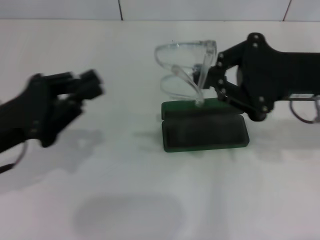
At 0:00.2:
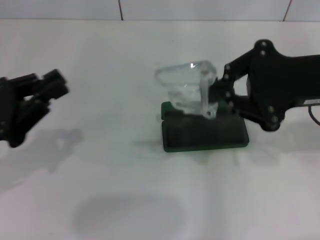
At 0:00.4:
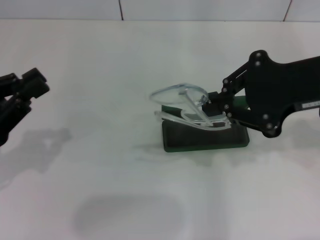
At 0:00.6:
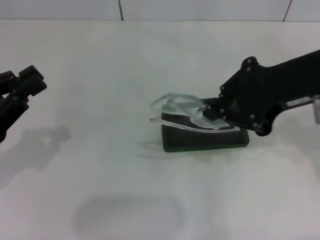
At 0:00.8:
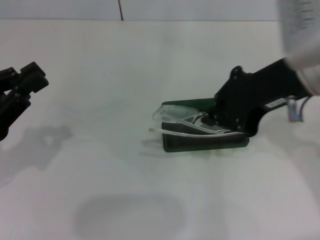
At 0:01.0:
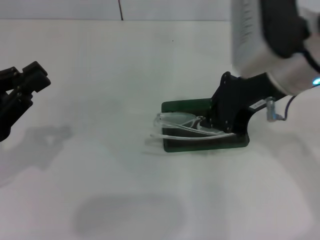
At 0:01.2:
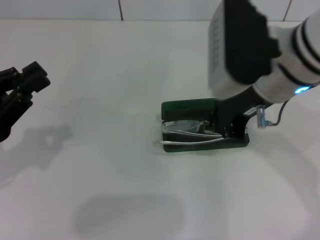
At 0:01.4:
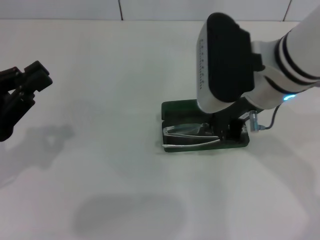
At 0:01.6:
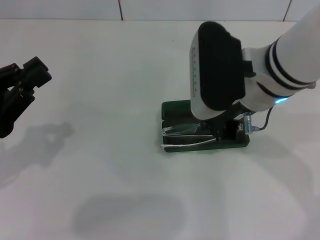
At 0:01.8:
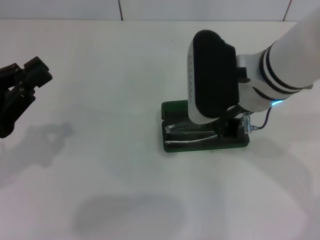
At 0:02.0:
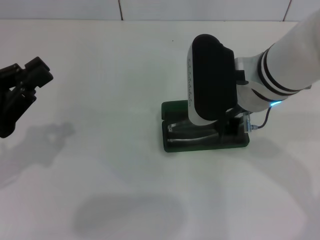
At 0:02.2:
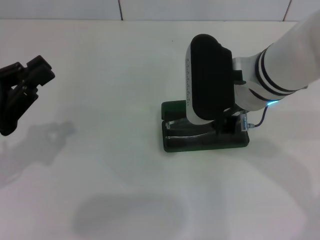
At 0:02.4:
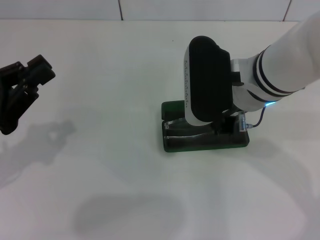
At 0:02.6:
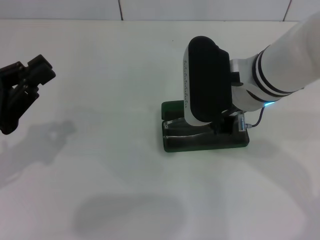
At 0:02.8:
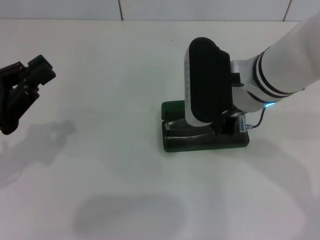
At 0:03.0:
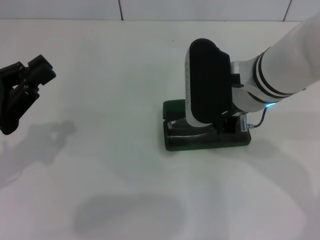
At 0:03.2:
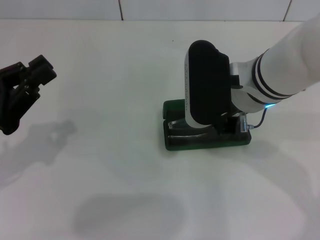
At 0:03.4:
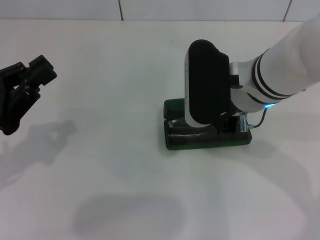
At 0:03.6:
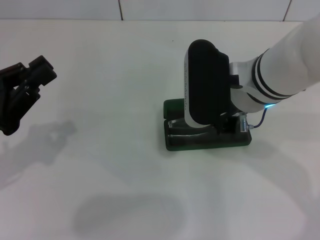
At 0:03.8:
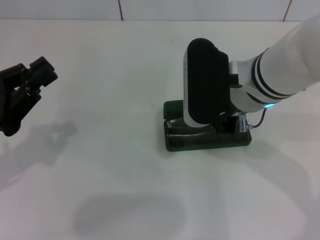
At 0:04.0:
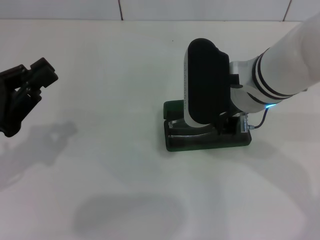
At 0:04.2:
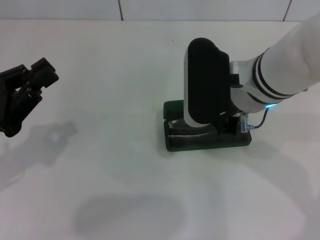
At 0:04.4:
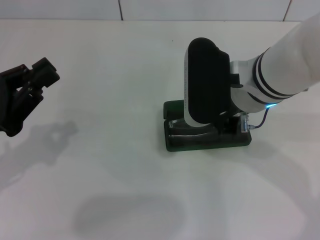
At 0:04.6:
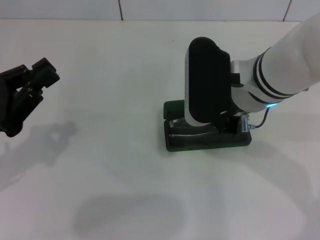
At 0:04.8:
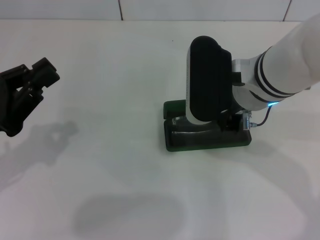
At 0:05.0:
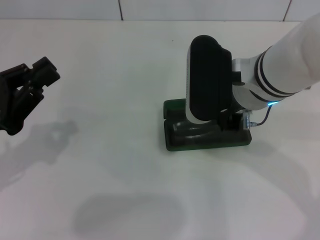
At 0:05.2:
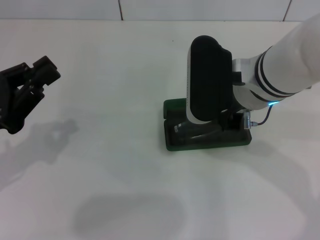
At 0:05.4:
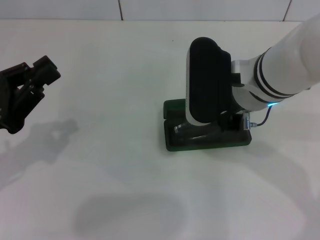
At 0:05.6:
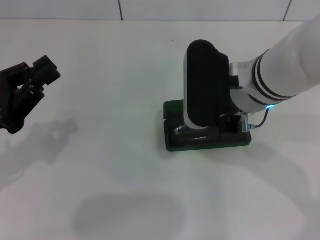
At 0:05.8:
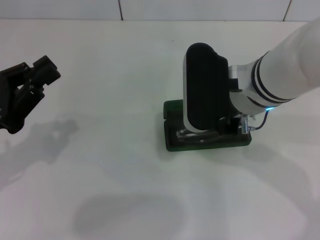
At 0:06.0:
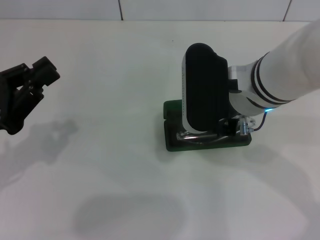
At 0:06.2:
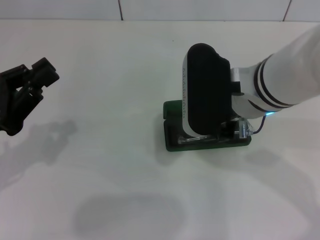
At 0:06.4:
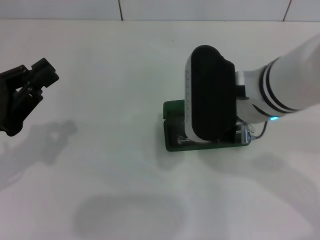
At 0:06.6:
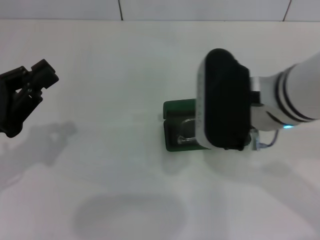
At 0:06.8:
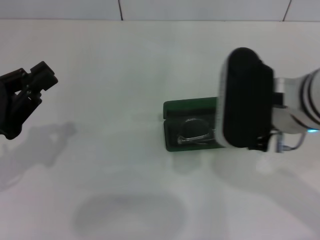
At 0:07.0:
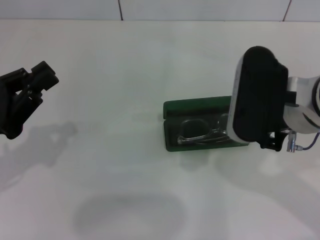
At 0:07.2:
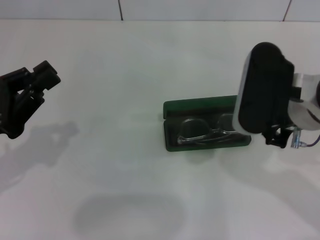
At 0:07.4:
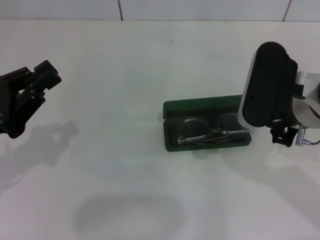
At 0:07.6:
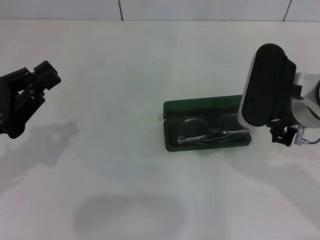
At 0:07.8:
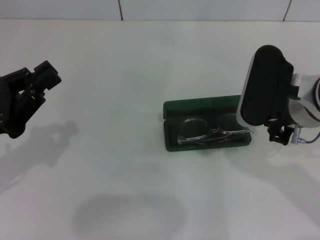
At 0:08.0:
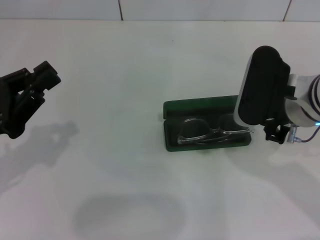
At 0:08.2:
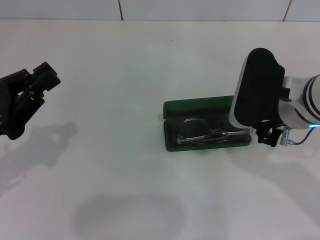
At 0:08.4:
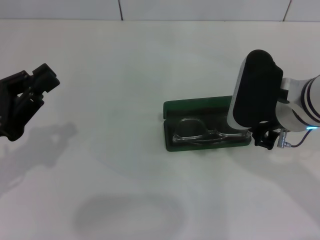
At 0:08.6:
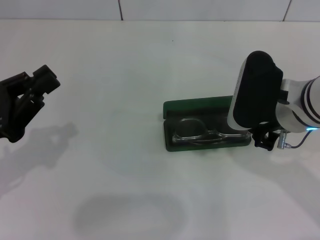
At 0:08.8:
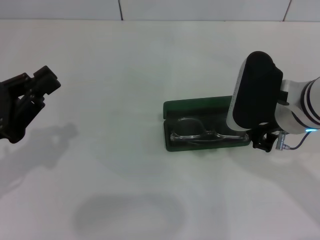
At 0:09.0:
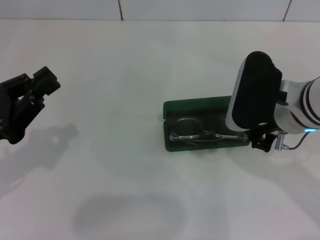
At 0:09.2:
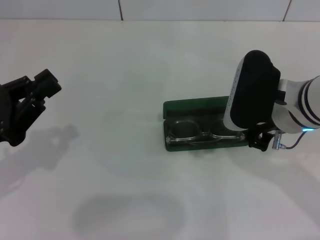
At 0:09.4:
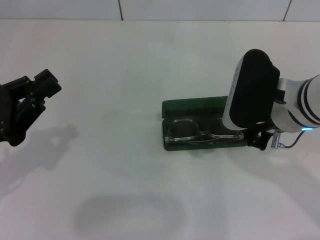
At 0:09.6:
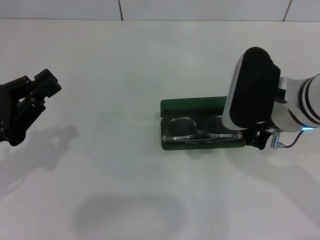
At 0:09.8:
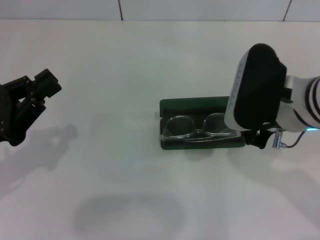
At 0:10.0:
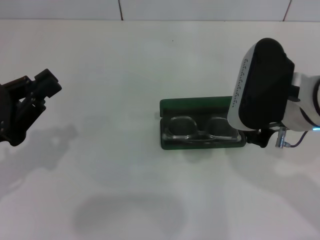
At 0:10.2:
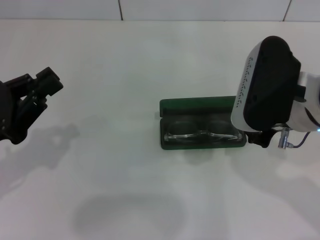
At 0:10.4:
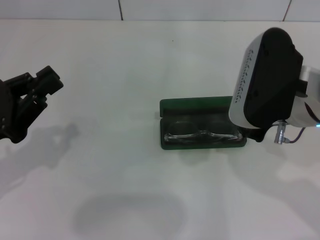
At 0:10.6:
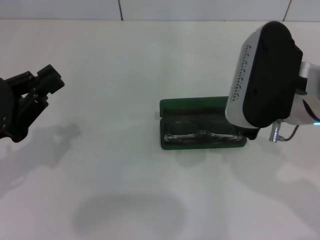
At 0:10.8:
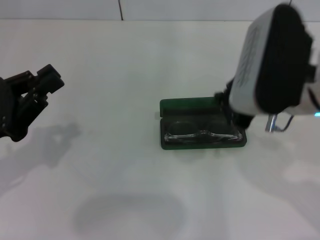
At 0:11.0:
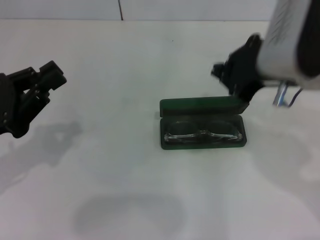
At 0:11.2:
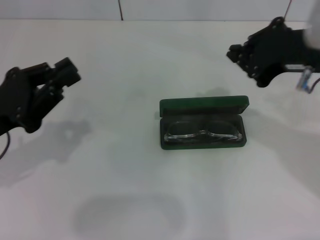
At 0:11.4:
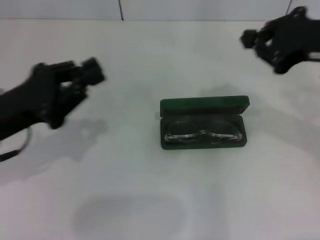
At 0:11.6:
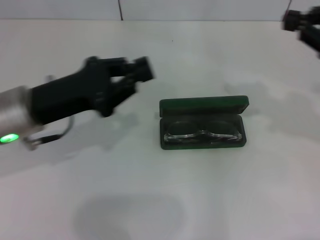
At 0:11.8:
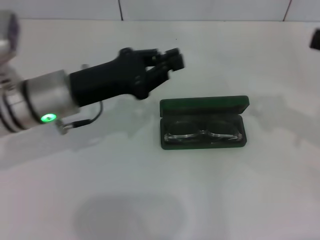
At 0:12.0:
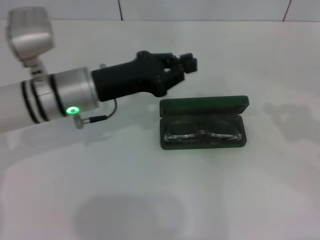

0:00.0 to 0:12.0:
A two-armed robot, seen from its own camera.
Step, 0:00.0 to 0:10.6: Put the glasses into the case with your right hand.
0:00.0 to 0:01.6: The right gripper heads to the left, covering roughly 10 cm; the left gripper moves roughly 5 cm.
0:01.6 to 0:03.0: The grippers make only small movements.
0:03.0 to 0:06.0: The two grippers keep their place.
0:06.0 to 0:07.6: The right gripper shifts about 5 cm to the right.
0:07.6 to 0:09.0: The grippers make only small movements.
0:09.0 to 0:10.4: The right gripper goes approximately 5 cm upward.
0:10.4 to 0:12.0: The right gripper shifts about 25 cm to the right. The left gripper moves to the right and forward, about 20 cm.

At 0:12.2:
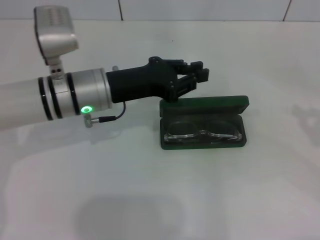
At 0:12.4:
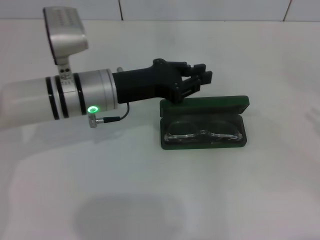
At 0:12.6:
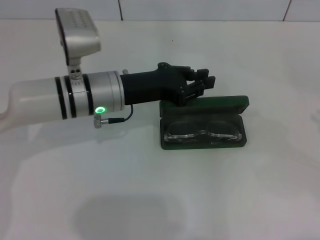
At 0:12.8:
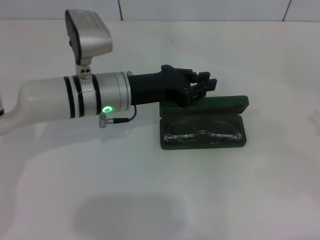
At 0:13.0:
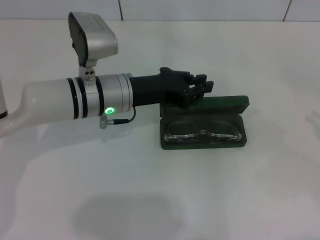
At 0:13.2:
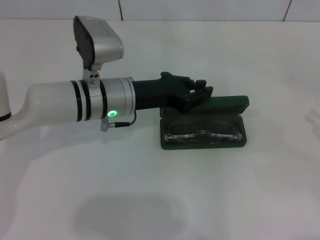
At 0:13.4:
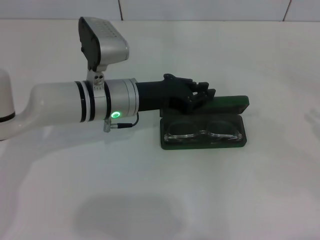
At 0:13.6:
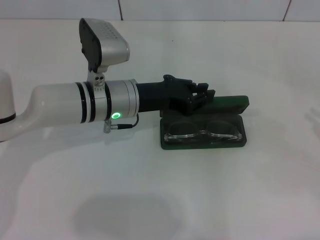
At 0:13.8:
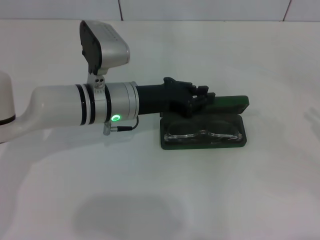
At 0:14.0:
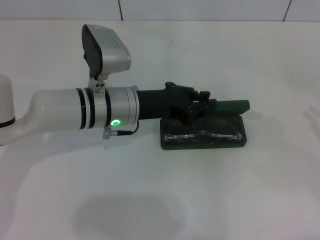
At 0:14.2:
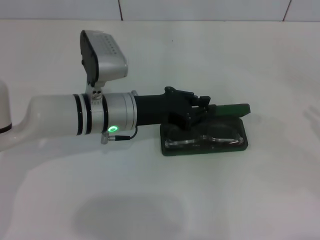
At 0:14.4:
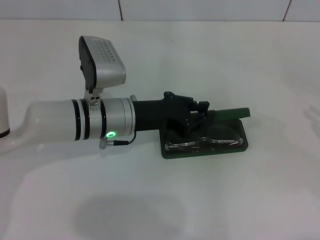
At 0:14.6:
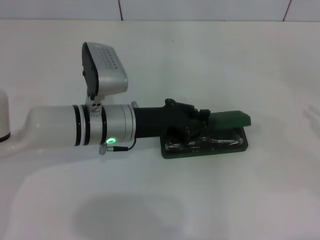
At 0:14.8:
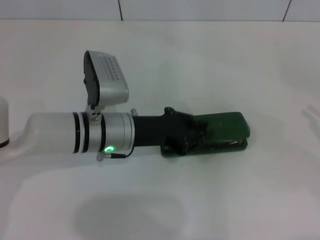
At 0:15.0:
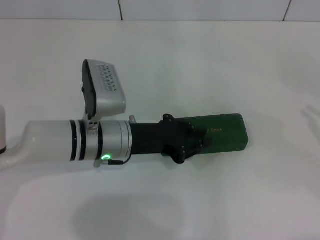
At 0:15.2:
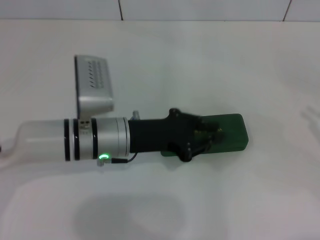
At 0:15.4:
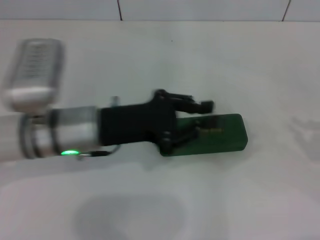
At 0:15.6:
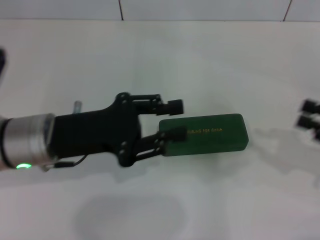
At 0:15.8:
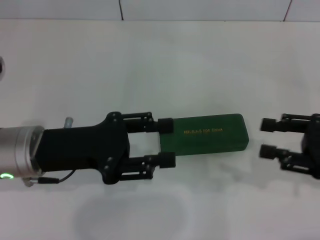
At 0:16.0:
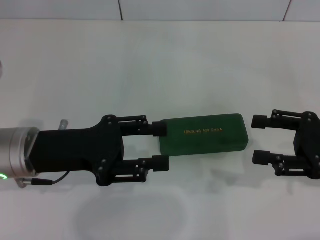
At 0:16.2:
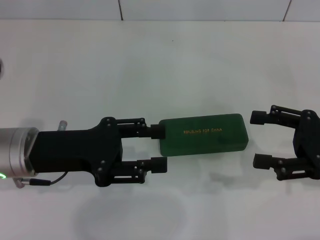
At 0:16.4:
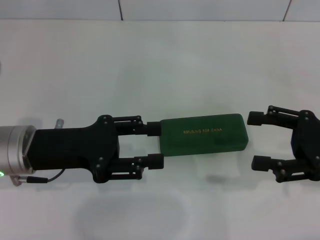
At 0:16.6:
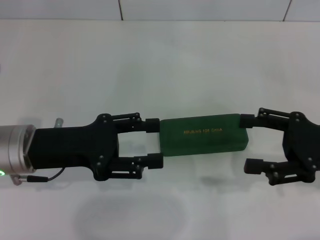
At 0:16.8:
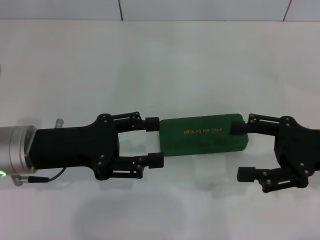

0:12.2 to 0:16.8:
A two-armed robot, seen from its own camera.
Step, 0:12.2 to 0:15.2: Close the glasses case with your left hand.
0:12.2 to 0:13.8: The grippers move only a little.
0:13.8 to 0:15.2: The left gripper goes about 5 cm backward.
0:15.2 to 0:16.8: The grippers both shift to the left by roughly 10 cm. The right gripper opens up. Meanwhile the left gripper opens its fingers.
